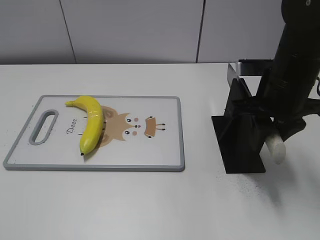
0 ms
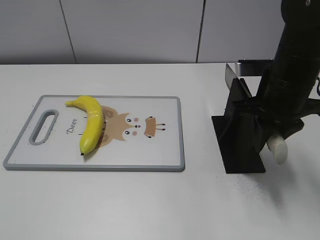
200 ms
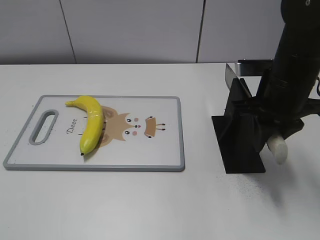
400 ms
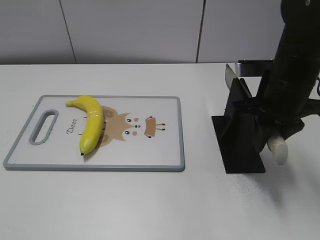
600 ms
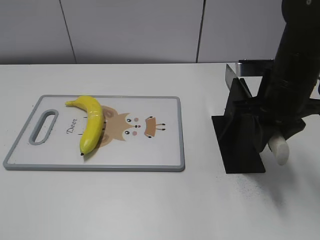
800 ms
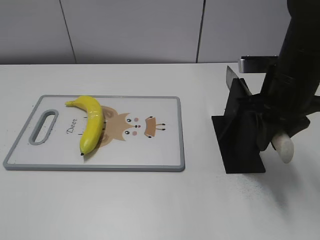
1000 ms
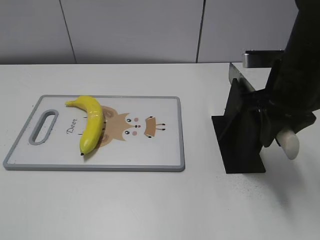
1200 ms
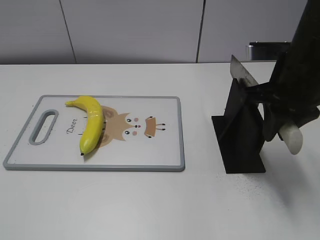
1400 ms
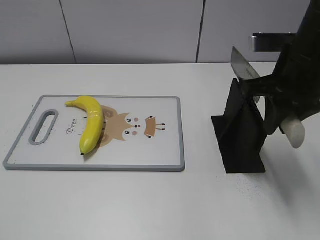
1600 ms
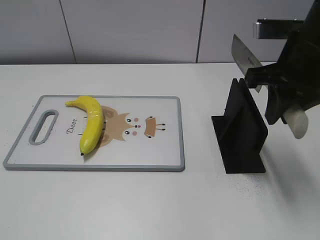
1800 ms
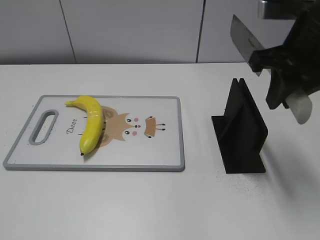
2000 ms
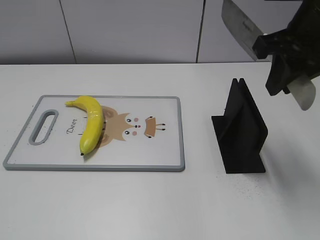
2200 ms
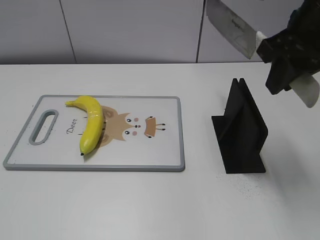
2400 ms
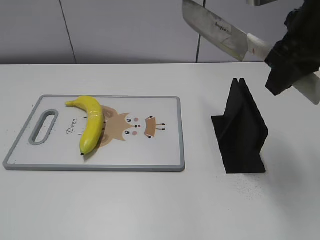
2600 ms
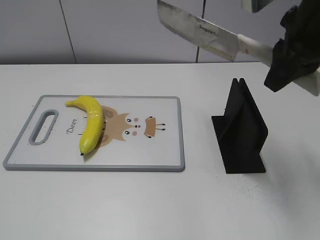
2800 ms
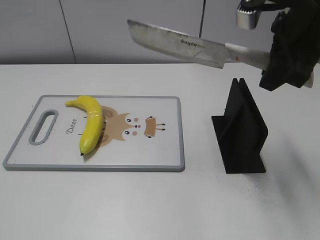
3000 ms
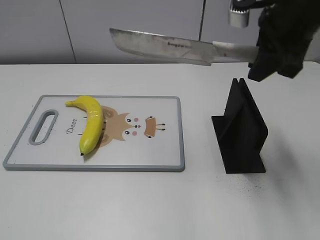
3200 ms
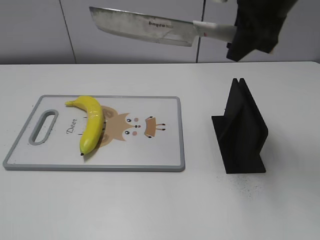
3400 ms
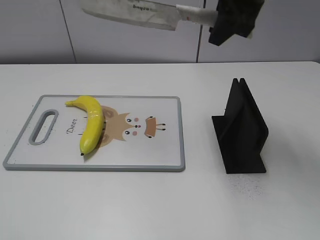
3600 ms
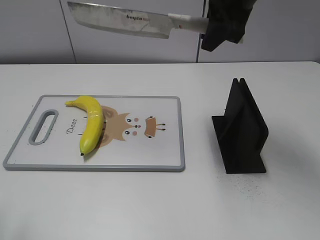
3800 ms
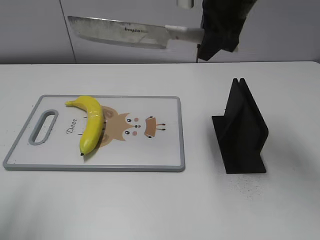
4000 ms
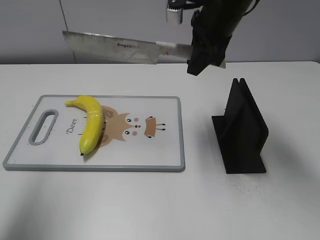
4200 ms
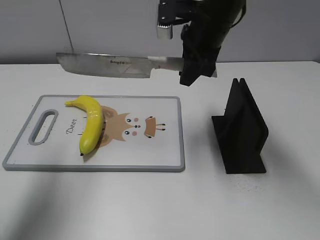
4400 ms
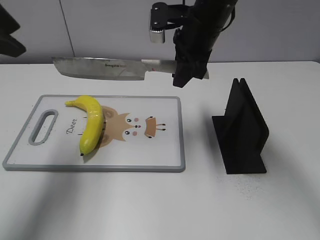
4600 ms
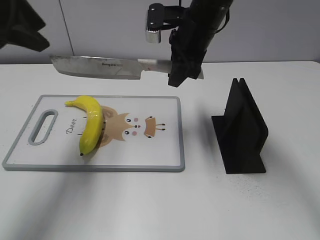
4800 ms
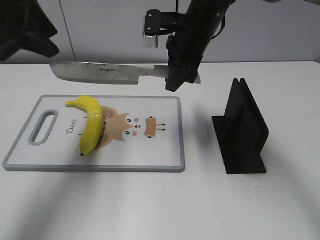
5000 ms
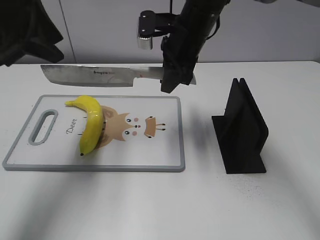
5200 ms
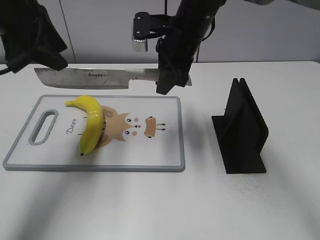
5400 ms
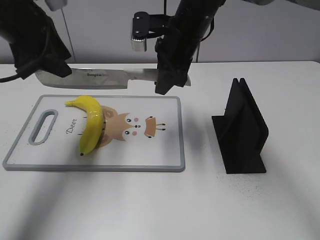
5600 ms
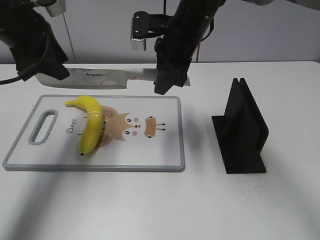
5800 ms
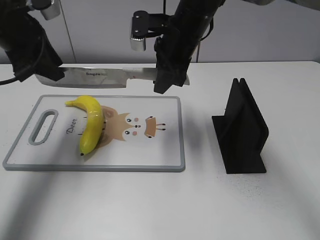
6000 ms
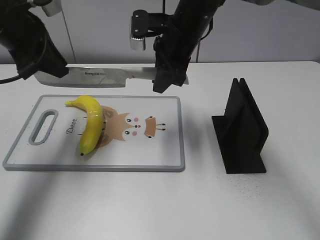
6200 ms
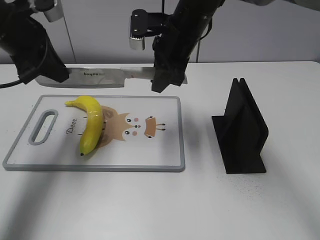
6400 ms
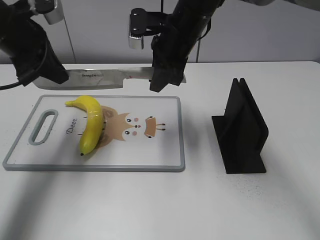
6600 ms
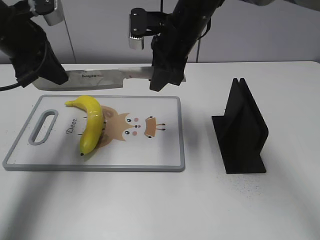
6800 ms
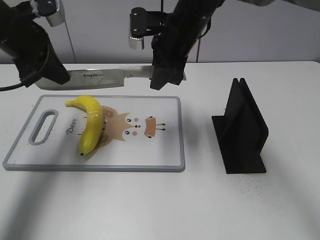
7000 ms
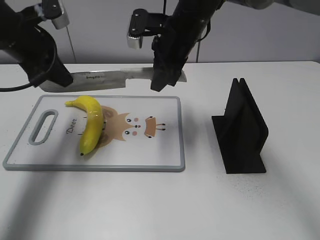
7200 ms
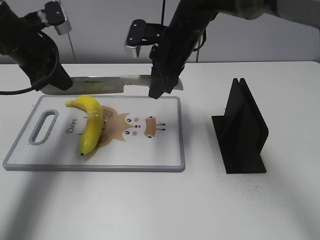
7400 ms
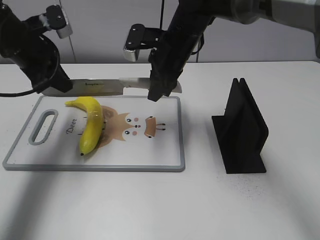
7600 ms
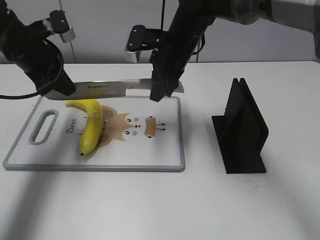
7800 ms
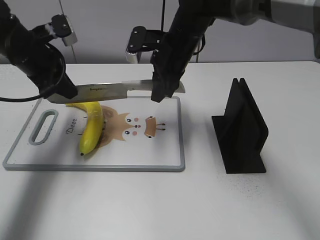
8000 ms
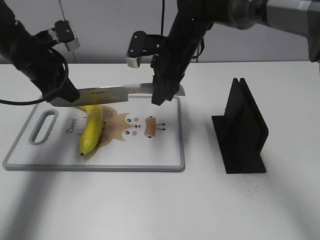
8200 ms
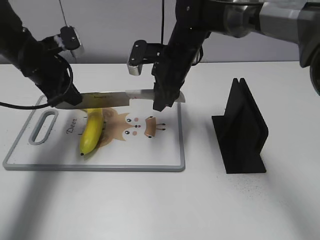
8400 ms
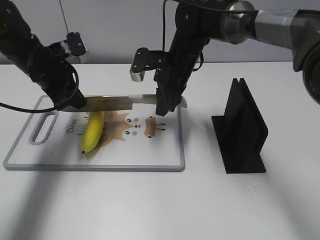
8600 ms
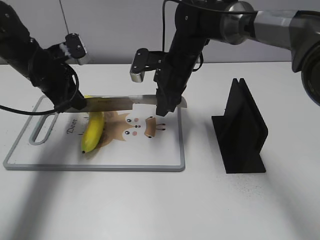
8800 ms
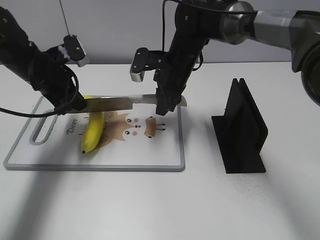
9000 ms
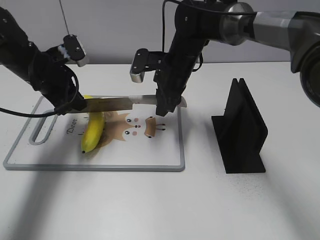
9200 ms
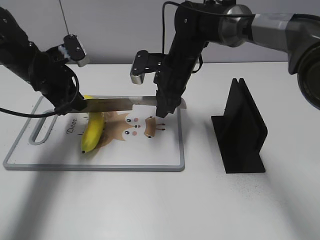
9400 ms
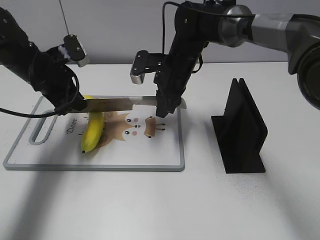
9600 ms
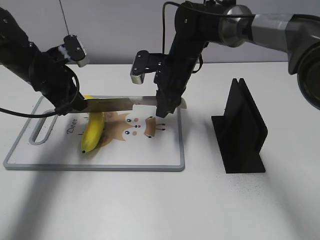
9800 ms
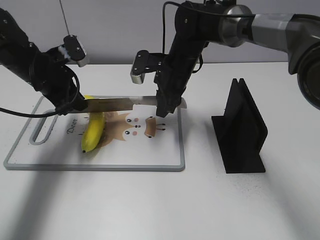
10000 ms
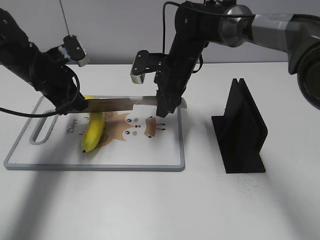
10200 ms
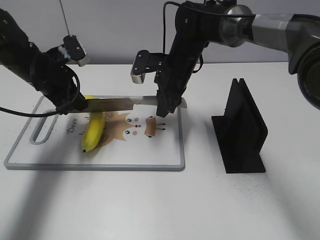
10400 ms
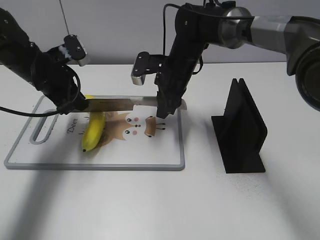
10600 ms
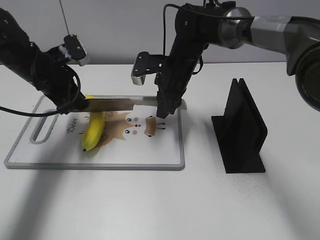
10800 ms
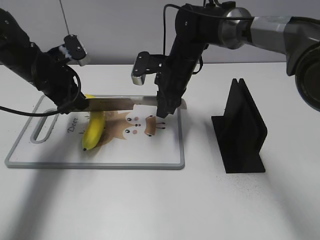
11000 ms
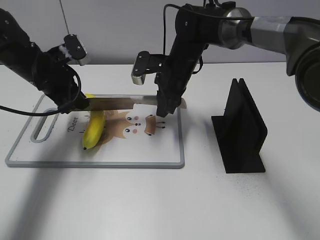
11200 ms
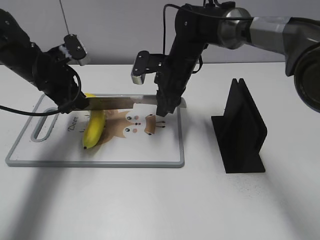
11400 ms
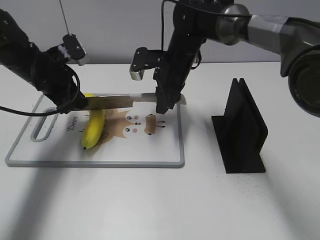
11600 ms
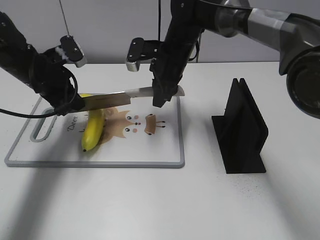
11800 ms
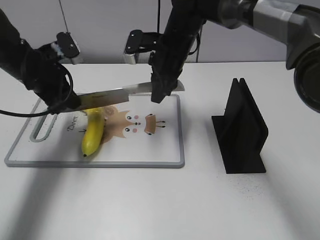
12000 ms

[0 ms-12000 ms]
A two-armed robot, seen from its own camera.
Task of the whole recording: cut plastic banana.
Step, 2200 ms to 10000 ms: Lift the knife with your right hand.
0 ms to 1600 ms: The grippers stay close to where they were, moving slightly.
1600 ms to 3000 ms: The right gripper travels upward by some 5 cm.
3000 ms to 4400 ms: The right gripper shifts about 15 cm forward, to the left and downward. Meanwhile the left gripper shifts roughly 25 cm forward.
4400 ms to 6000 ms: The left gripper travels forward and downward by roughly 15 cm; the right gripper changes place by some 5 cm.
6000 ms to 7600 ms: The left gripper closes its fingers.
7600 ms to 9000 ms: The grippers both shift downward by roughly 5 cm.
9000 ms to 10400 ms: Both grippers stay put.
10400 ms to 12000 ms: The grippers move only a little.

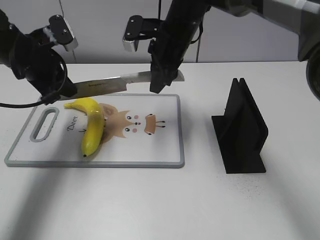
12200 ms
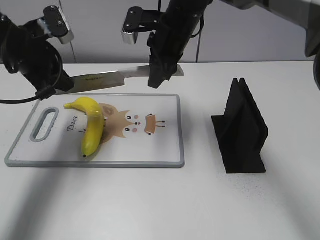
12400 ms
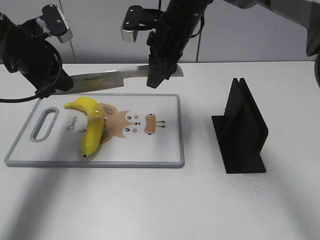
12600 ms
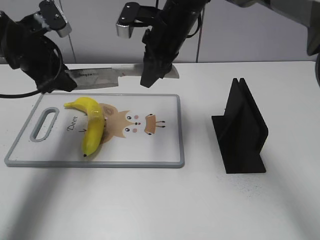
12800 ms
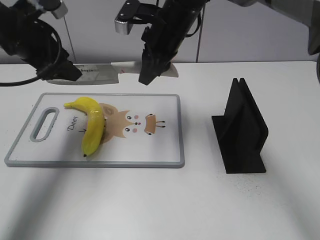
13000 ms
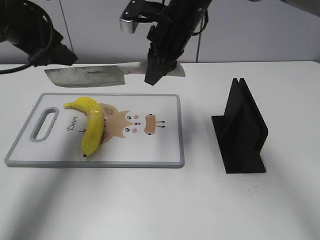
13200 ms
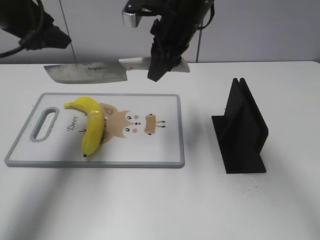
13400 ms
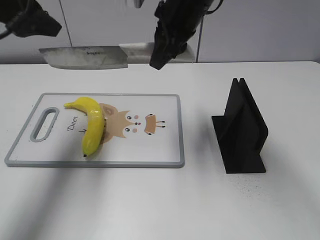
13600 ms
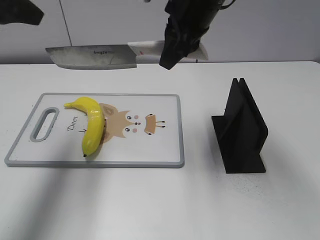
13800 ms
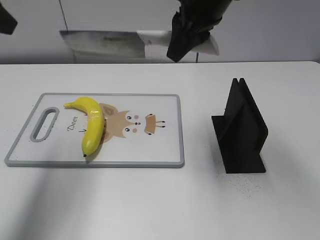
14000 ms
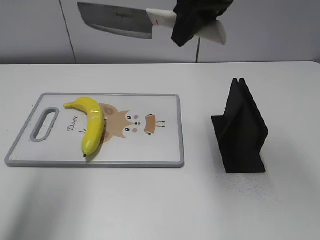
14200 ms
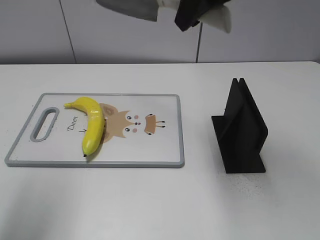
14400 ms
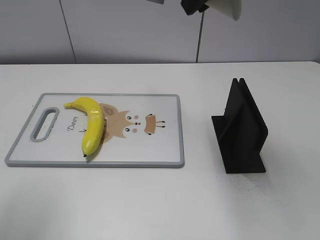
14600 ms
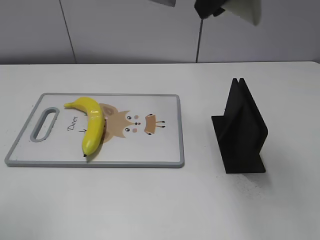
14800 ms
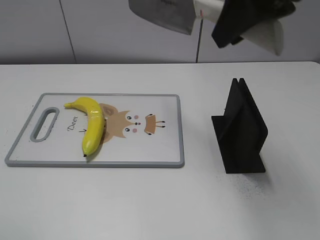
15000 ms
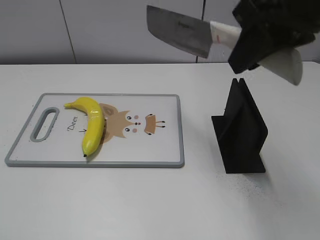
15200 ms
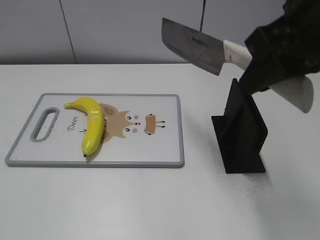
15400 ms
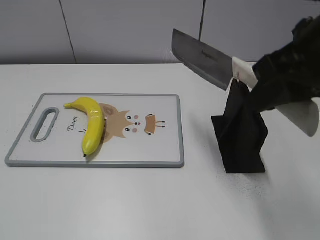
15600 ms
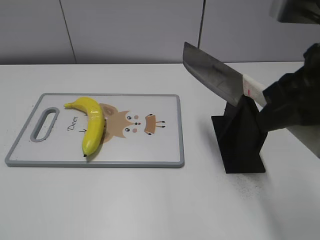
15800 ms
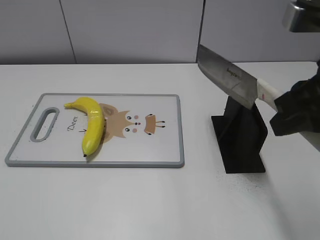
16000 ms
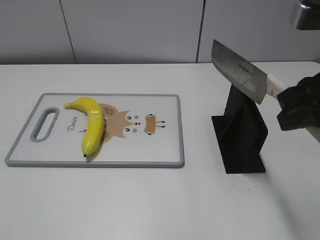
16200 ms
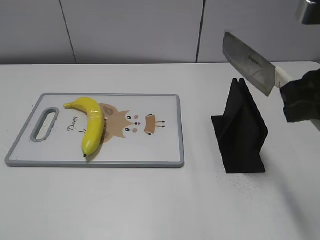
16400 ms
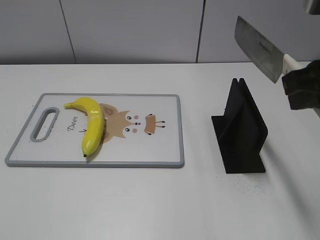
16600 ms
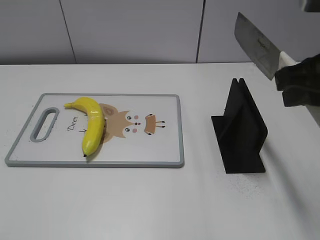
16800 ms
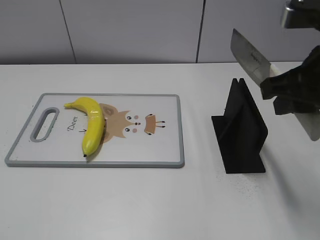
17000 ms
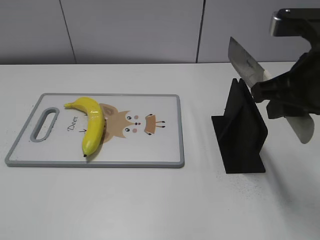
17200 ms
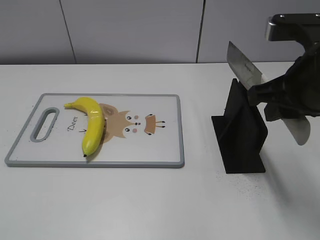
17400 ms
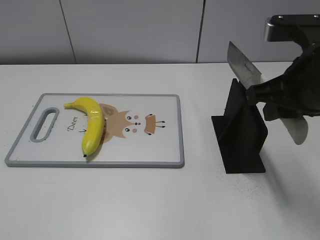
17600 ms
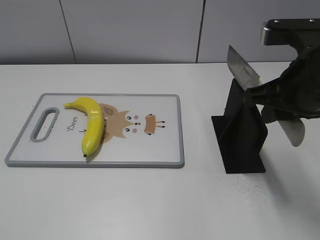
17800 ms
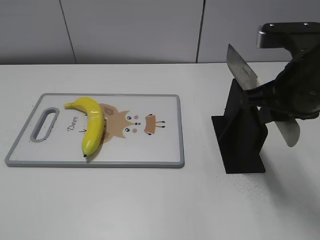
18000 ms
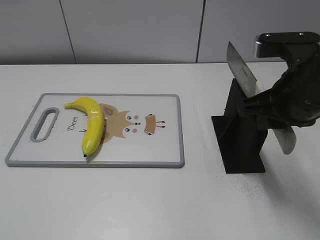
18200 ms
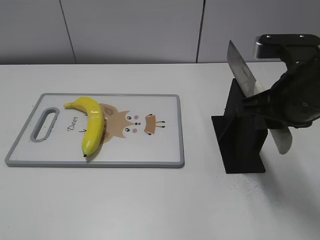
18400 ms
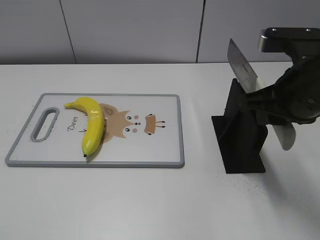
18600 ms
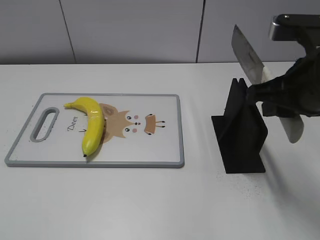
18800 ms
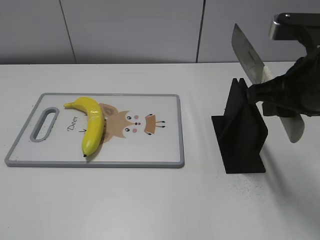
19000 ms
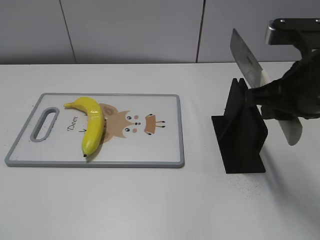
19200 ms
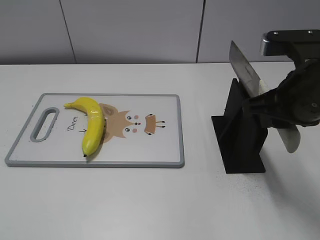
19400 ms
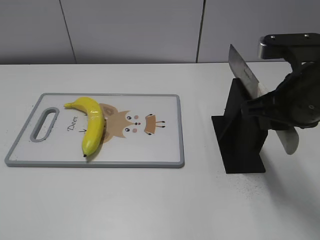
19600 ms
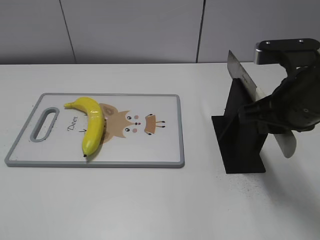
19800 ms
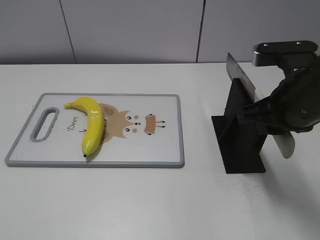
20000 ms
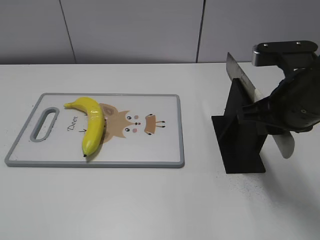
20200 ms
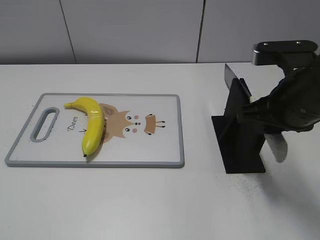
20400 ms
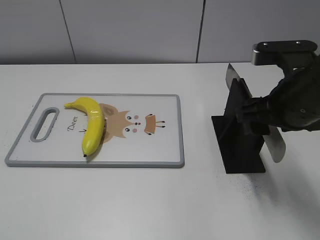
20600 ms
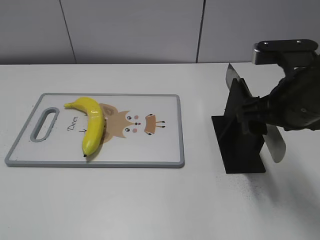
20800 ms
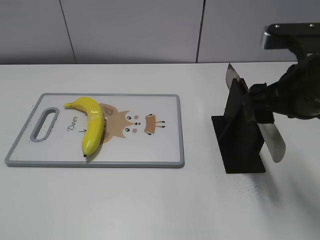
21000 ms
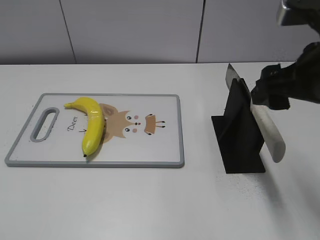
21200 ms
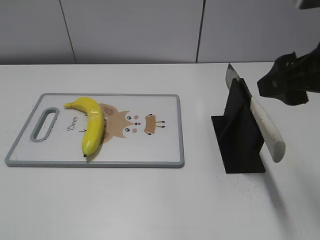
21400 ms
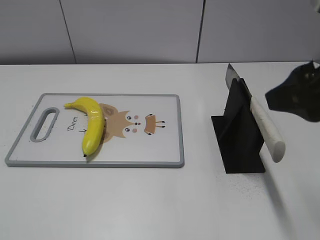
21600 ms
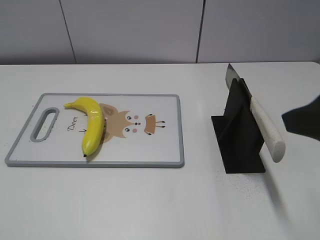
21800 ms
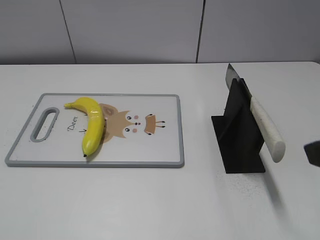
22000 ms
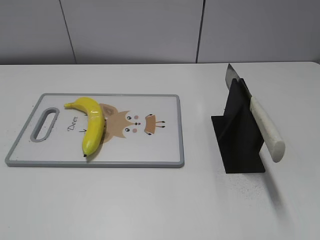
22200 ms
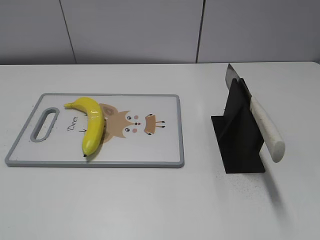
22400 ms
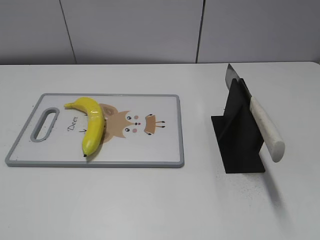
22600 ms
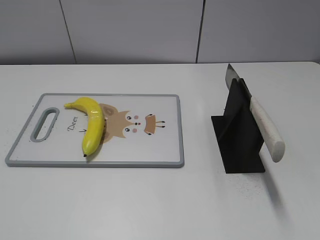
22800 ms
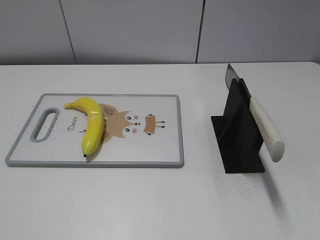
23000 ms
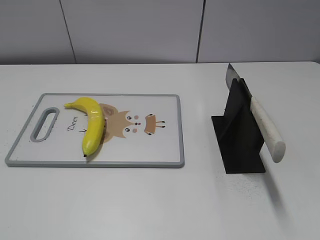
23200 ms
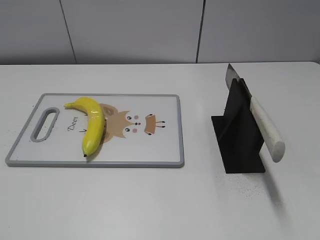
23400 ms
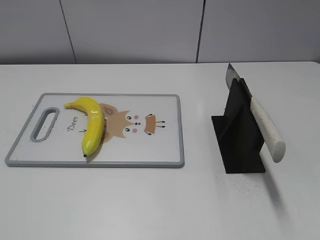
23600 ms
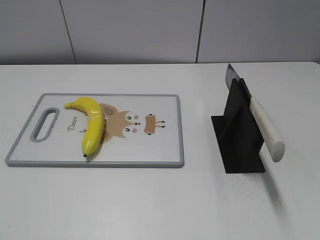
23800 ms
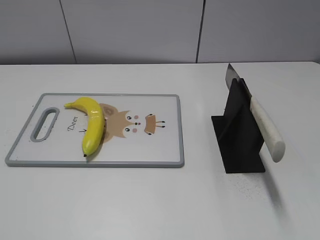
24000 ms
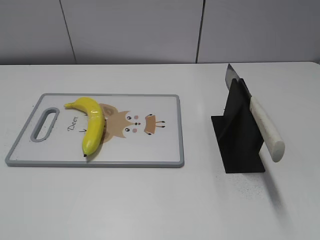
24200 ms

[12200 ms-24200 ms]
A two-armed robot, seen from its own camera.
Task of the whole recording: cut plastic banana.
Step, 13600 ms to 17200 ms: Secure the blade with your left hand.
12200 ms to 13800 ms: The two grippers go about 15 cm upward and backward. The left gripper opens.
13800 ms to 15200 ms: The left gripper shifts approximately 25 cm backward. Meanwhile the right gripper shifts roughly 15 cm backward, to the right and upward.
15200 ms to 16600 ms: The right gripper shifts approximately 10 cm to the right and downward; the left gripper travels downward by some 5 cm.
16600 ms to 18200 ms: The right gripper shifts about 5 cm downward.
18200 ms to 19800 ms: The grippers stay close to where they were, moving slightly.
19800 ms to 21200 ms: The right gripper moves about 5 cm, and opens up.
21200 ms to 22600 ms: The right gripper goes some 20 cm backward and to the right.
